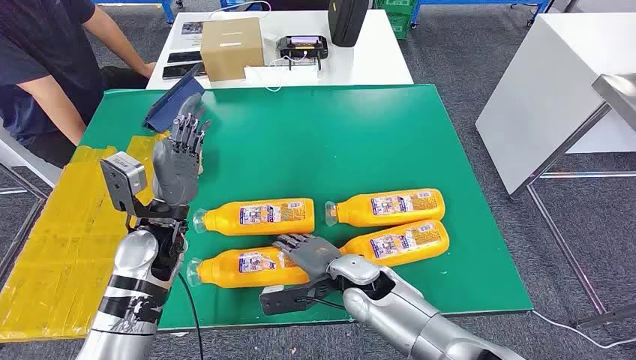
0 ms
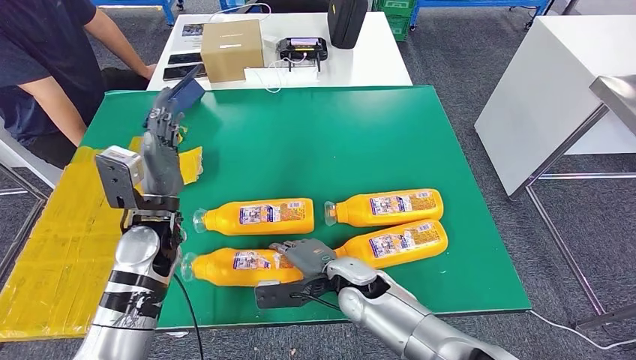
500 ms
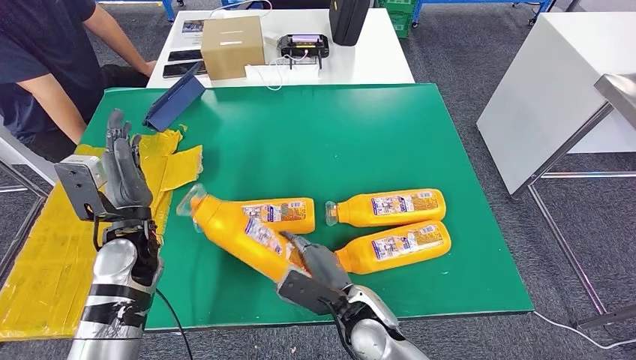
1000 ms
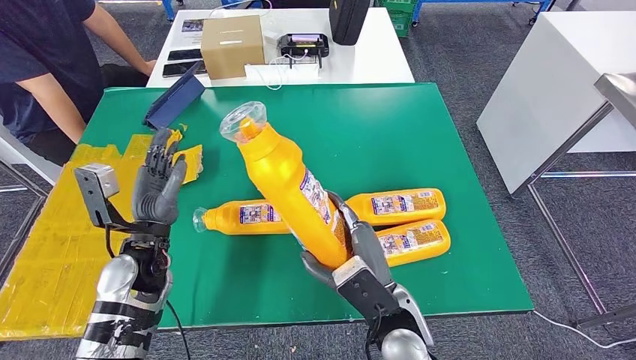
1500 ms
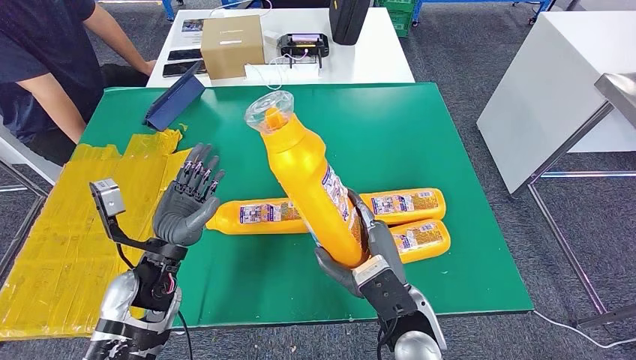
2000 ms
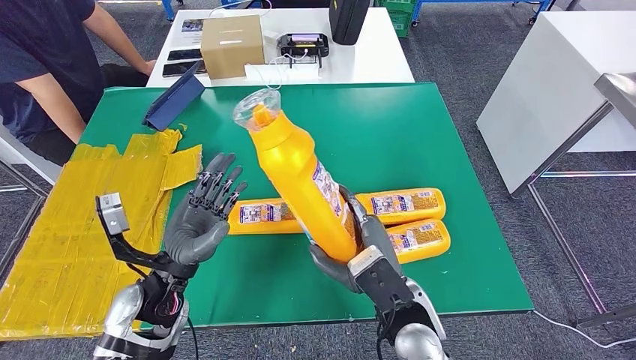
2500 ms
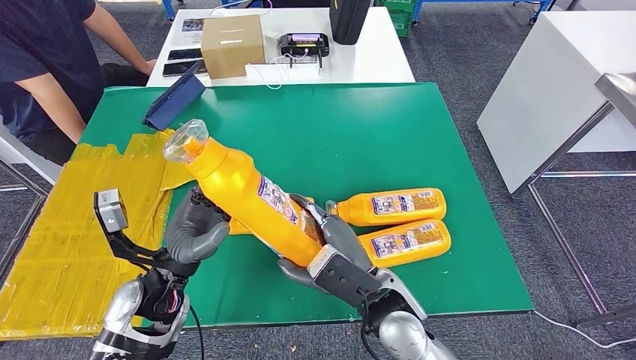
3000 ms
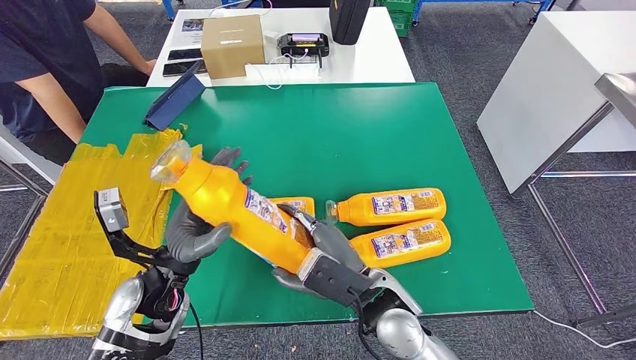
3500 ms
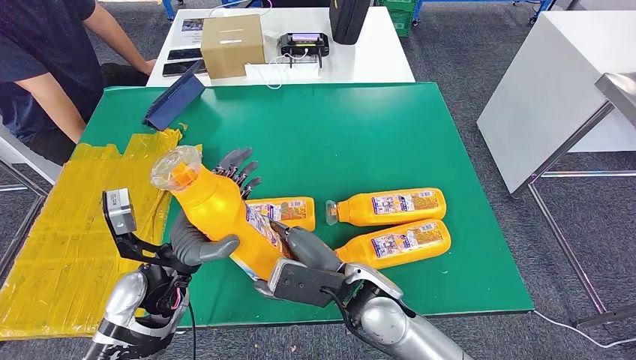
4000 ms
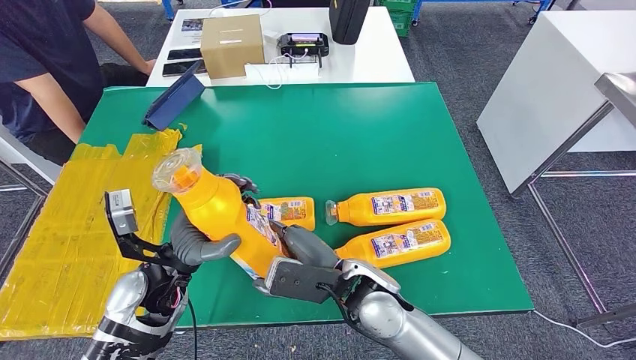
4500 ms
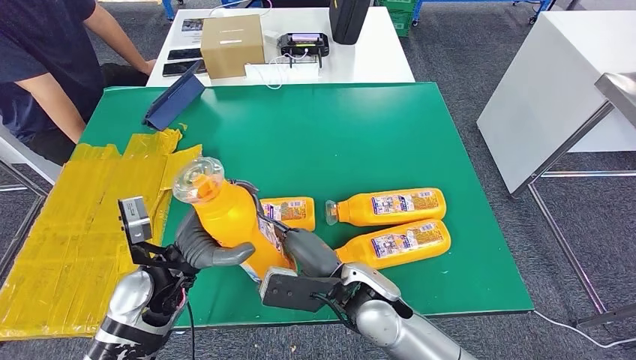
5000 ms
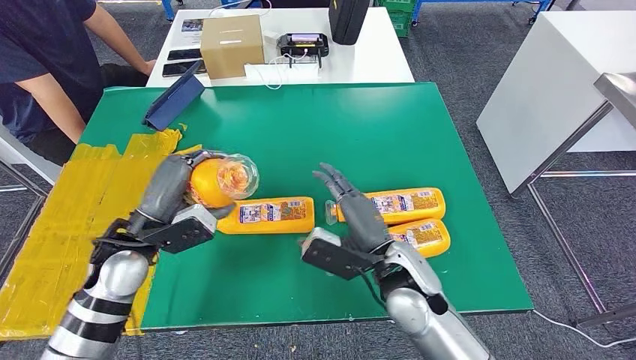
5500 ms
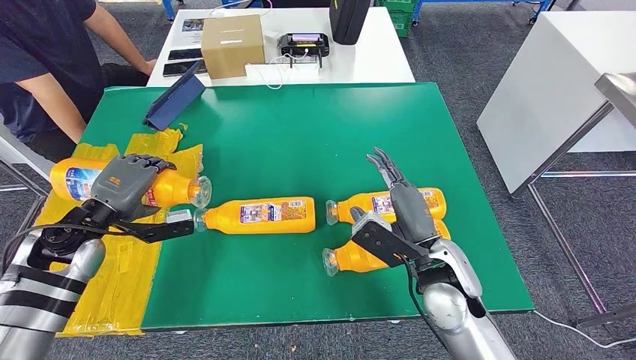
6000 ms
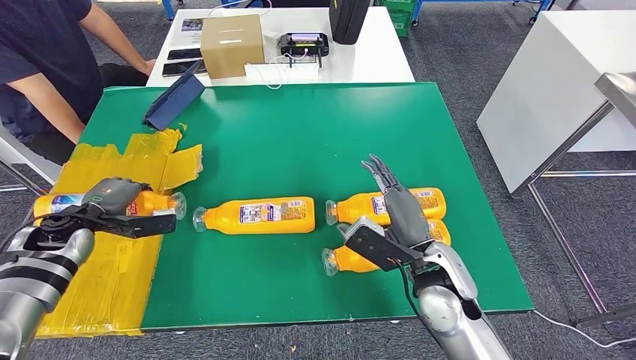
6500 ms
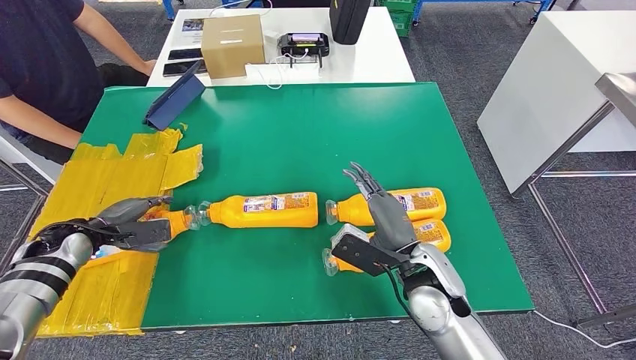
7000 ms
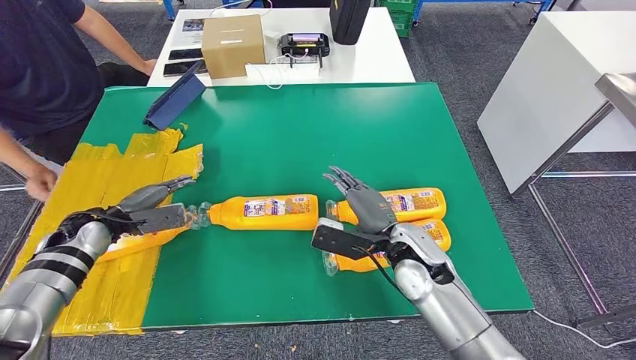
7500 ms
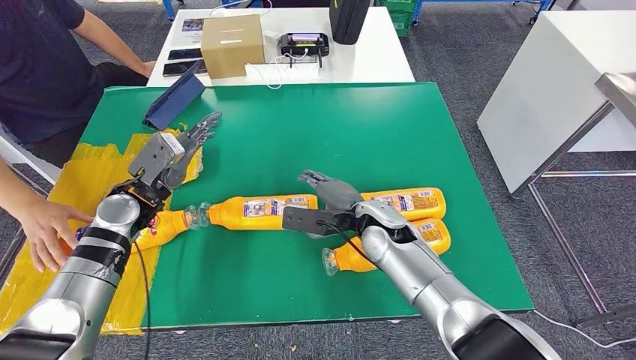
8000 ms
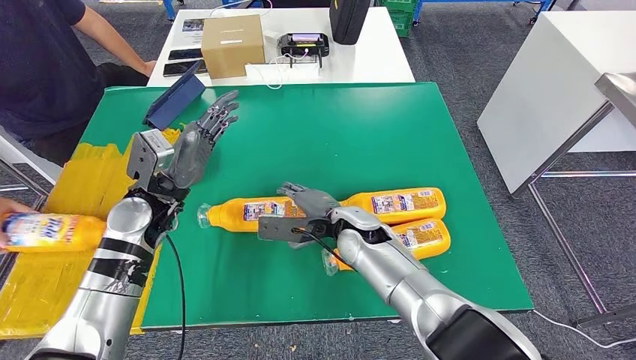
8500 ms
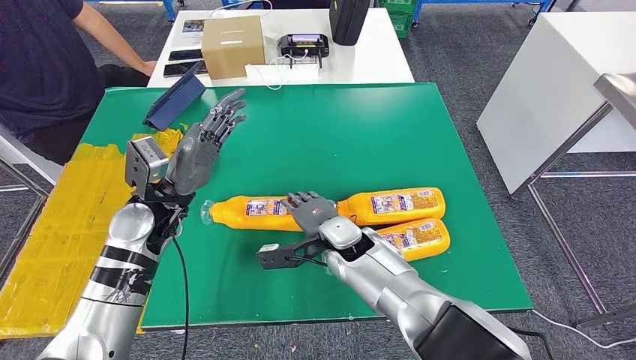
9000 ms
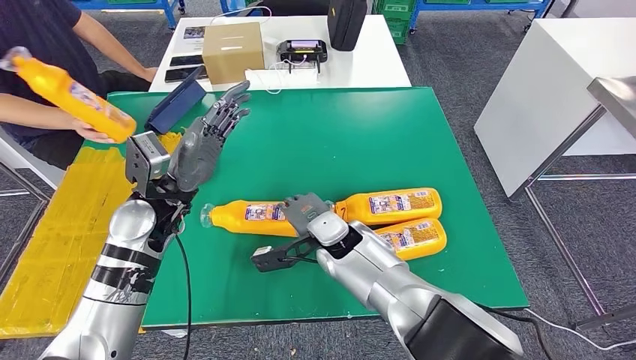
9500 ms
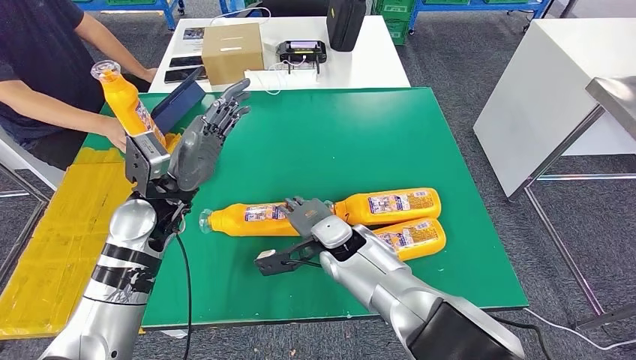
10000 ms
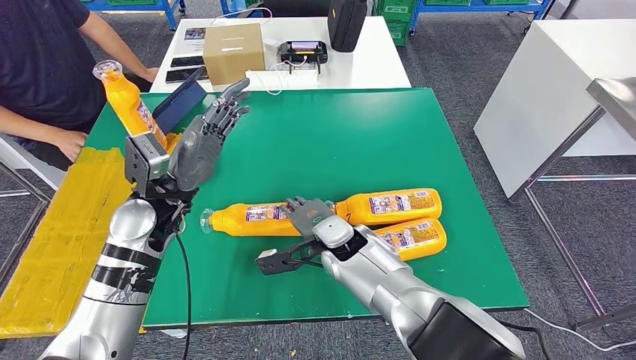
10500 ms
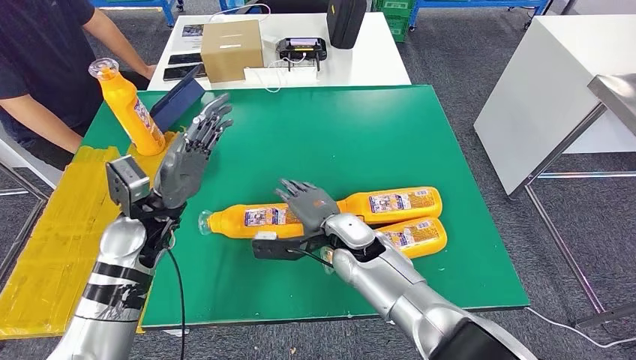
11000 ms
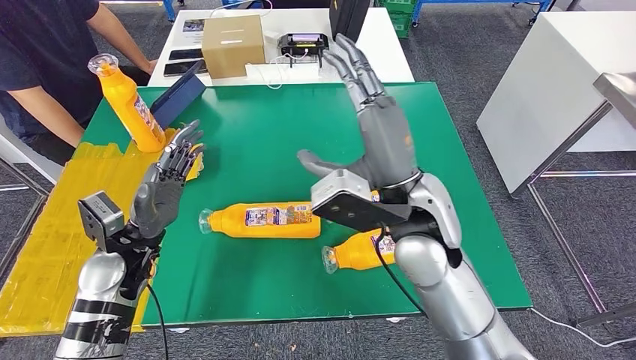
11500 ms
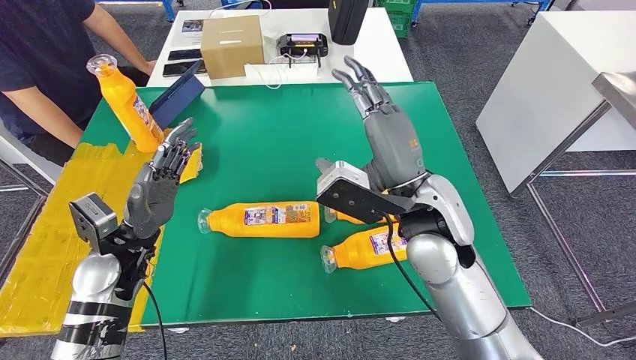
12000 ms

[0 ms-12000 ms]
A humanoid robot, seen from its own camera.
Step, 0 ms to 2000 ms: Take the fast-moving consumer goods bottle from the table.
Step, 4000 ms to 7000 ms: Flip the fast-moving consumer goods bottle to the front side.
2000 ms to 4000 ms: The right hand heads to the left, covering about 5 cm.

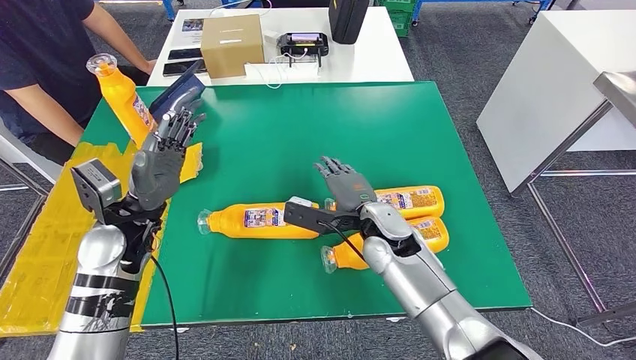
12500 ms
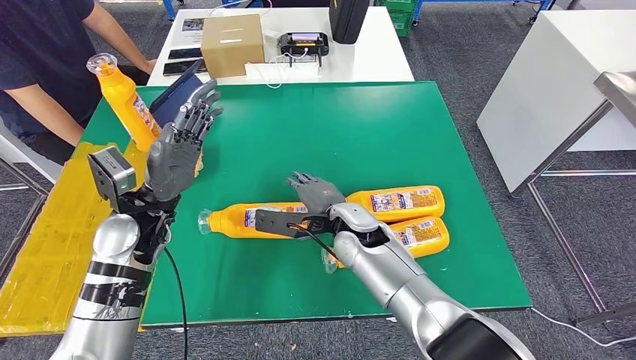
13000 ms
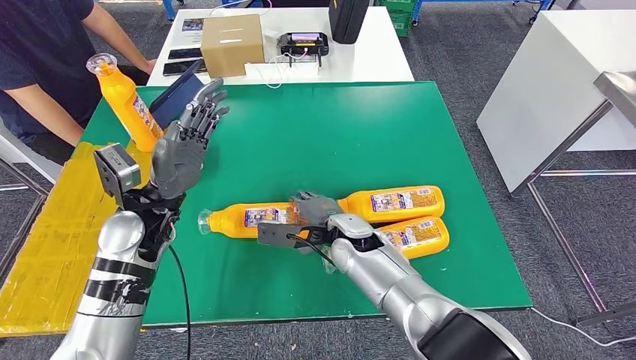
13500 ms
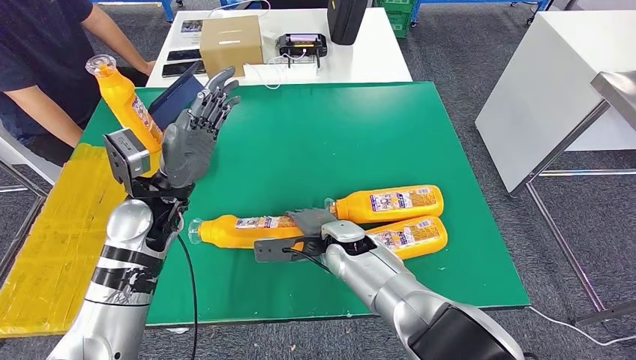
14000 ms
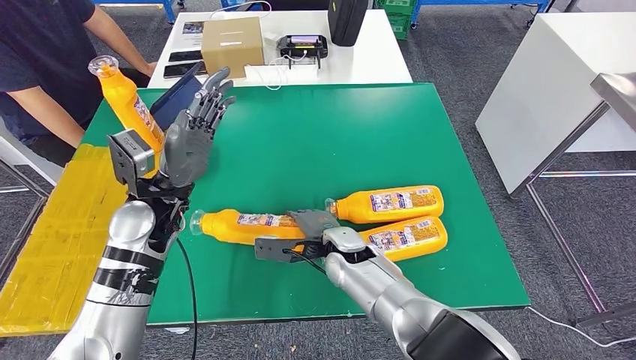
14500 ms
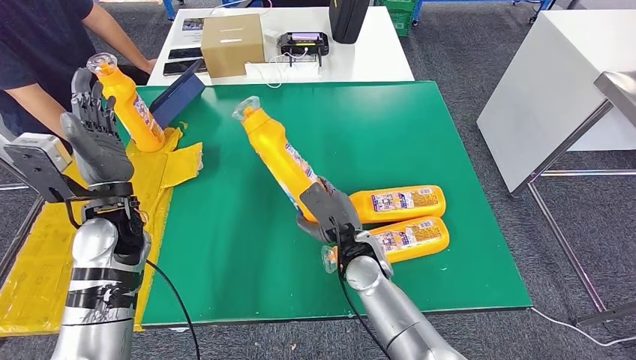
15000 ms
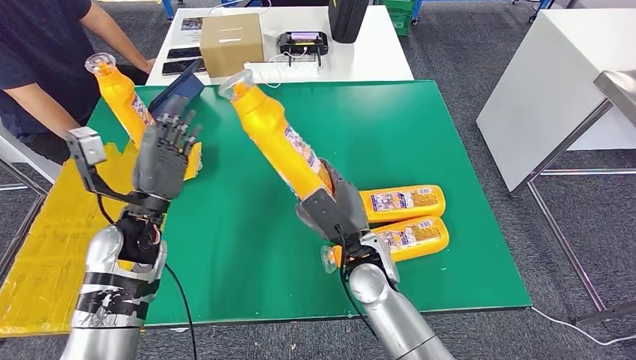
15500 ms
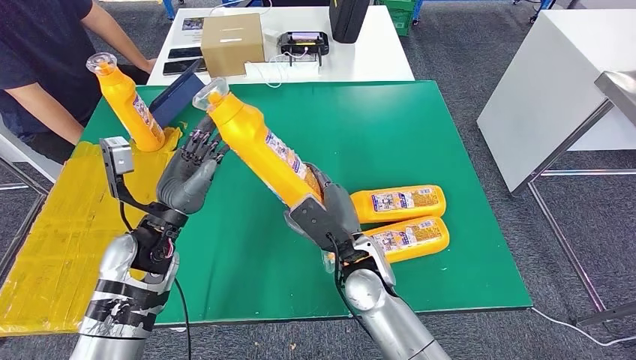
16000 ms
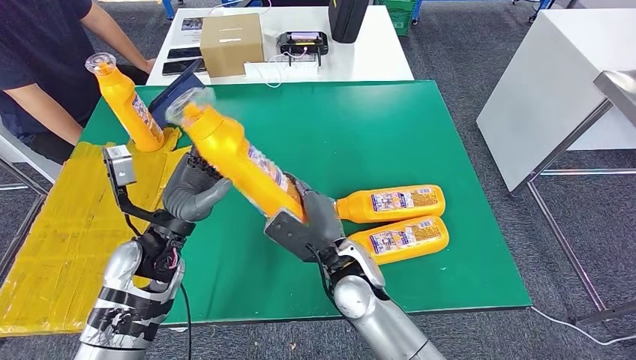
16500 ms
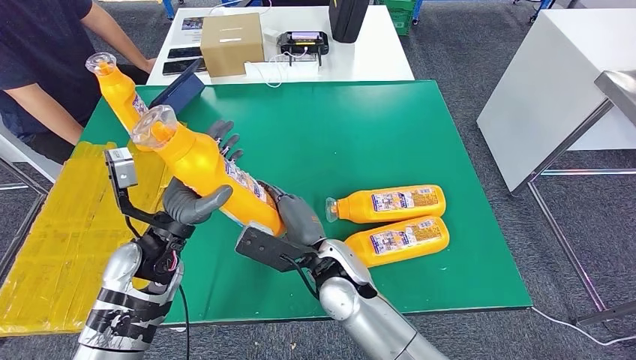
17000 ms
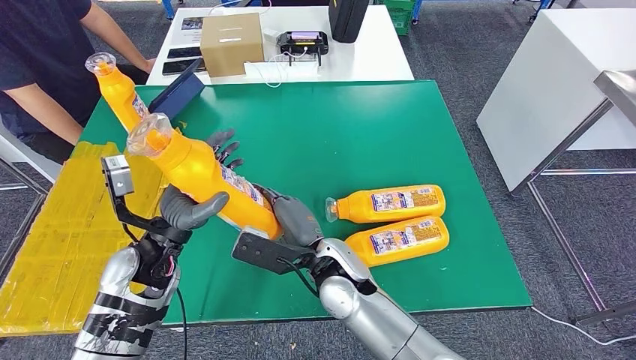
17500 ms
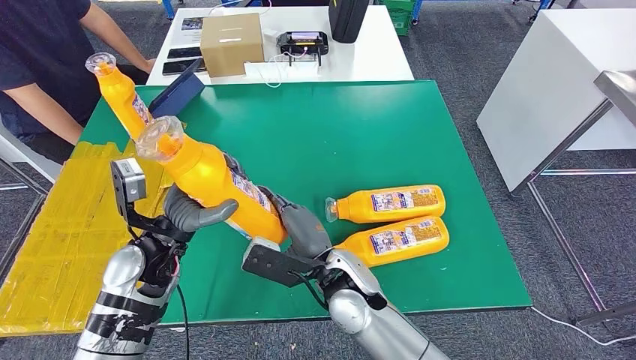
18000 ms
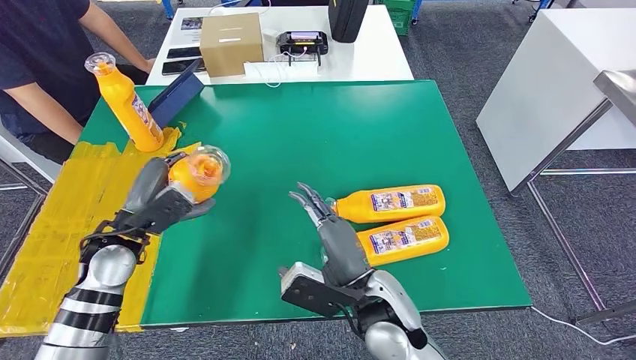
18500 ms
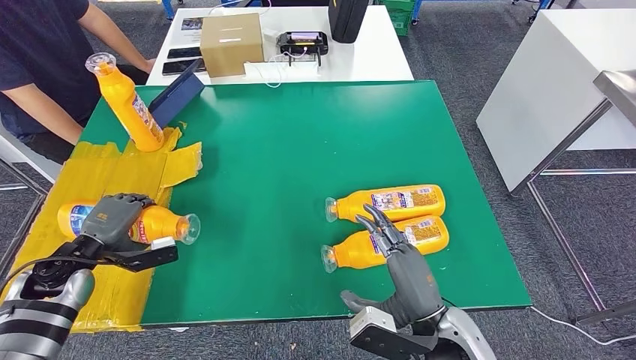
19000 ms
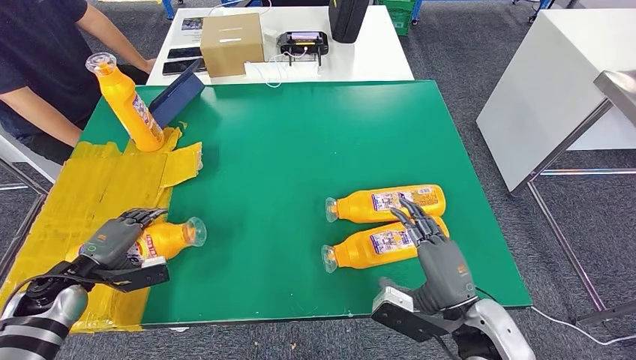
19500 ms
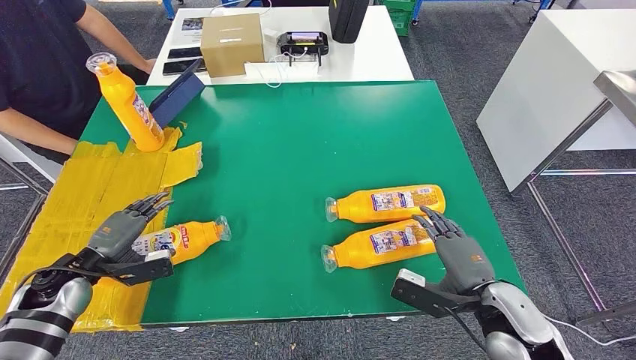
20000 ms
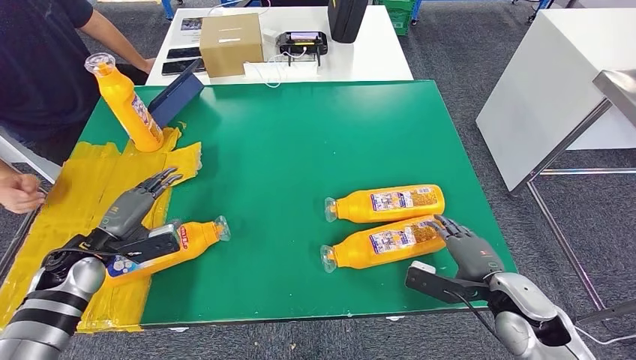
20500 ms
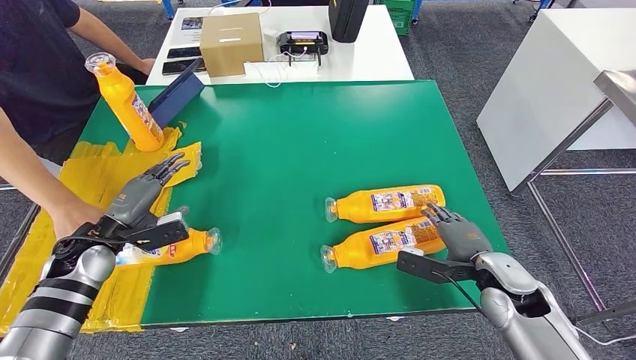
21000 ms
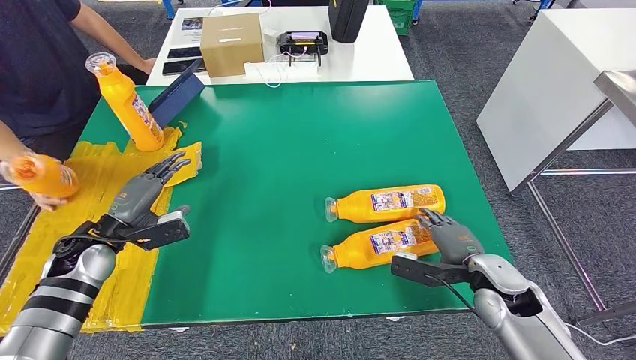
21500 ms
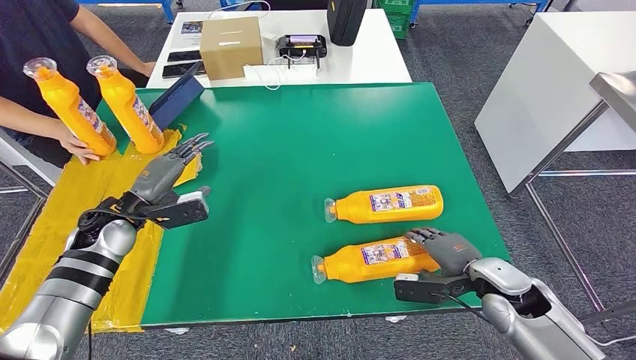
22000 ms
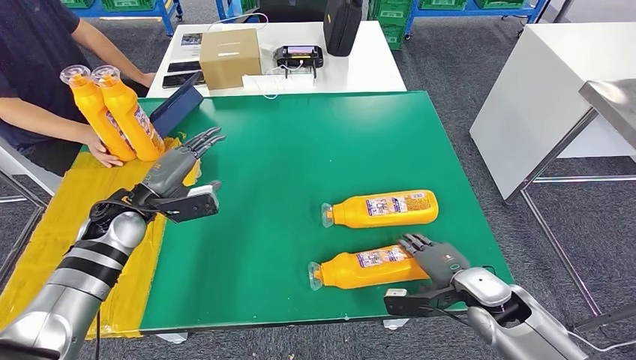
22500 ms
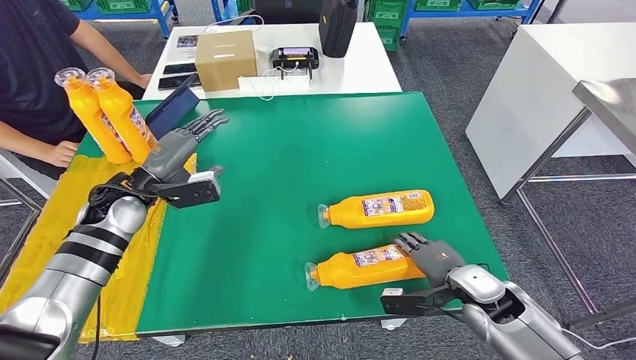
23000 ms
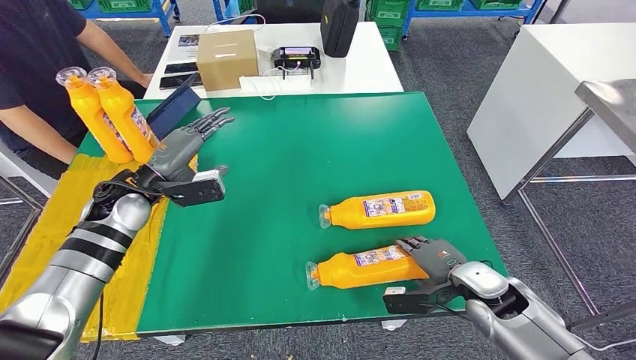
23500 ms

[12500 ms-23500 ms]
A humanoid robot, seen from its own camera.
Step, 13500 ms to 14500 ms: Pick up the fast-moving consumer goods bottle from the table.
Step, 16000 ms to 20000 ms: Flip the fast-moving consumer goods bottle to the front side.
16000 ms to 18000 ms: The right hand ends up some 5 cm from where it was.
20000 ms to 21500 ms: The right hand shifts roughly 5 cm forward. The left hand changes place by about 5 cm.
